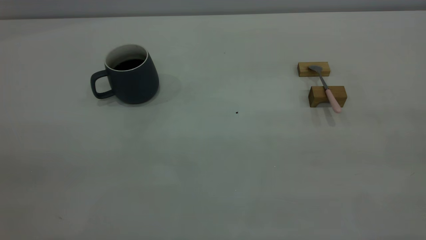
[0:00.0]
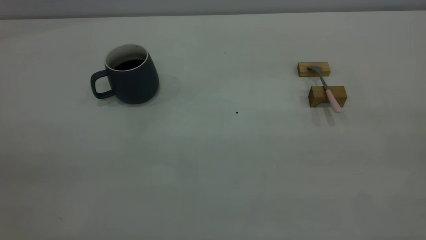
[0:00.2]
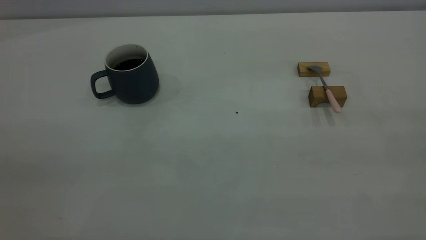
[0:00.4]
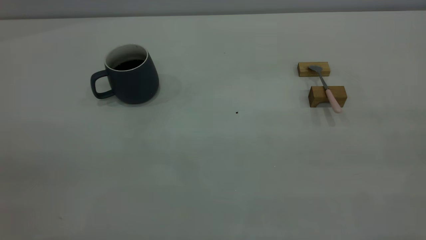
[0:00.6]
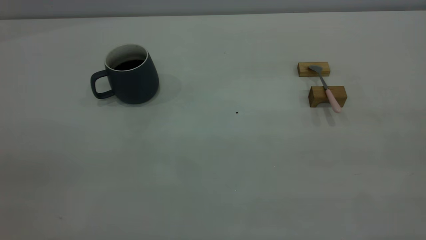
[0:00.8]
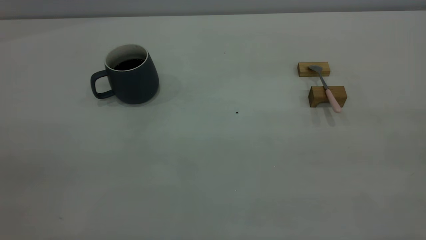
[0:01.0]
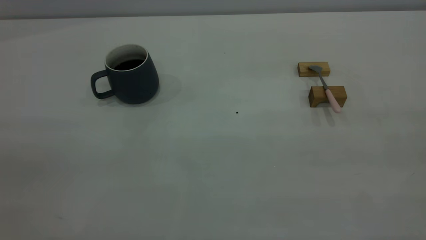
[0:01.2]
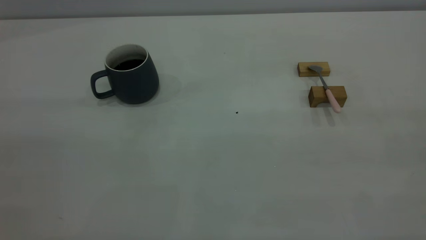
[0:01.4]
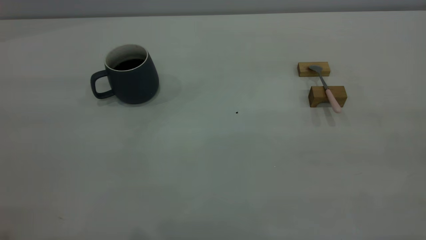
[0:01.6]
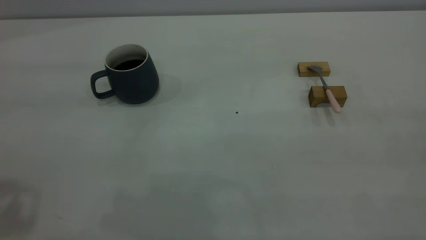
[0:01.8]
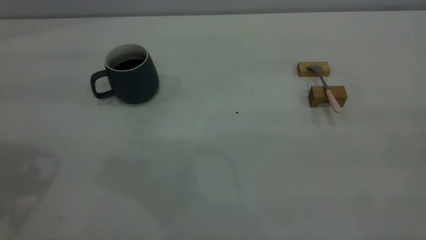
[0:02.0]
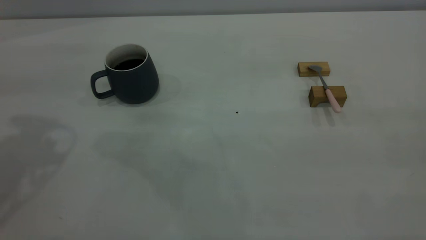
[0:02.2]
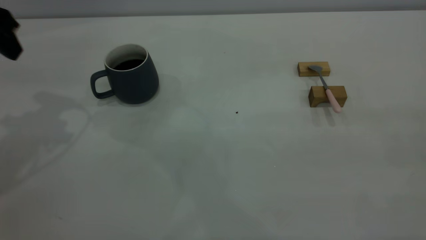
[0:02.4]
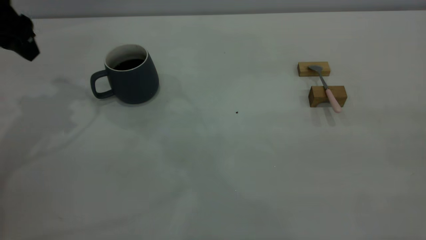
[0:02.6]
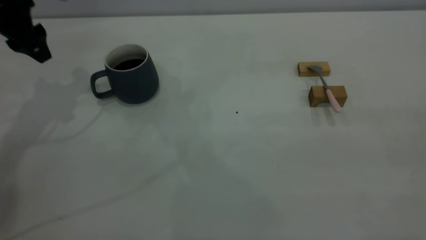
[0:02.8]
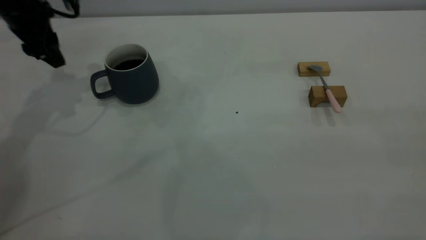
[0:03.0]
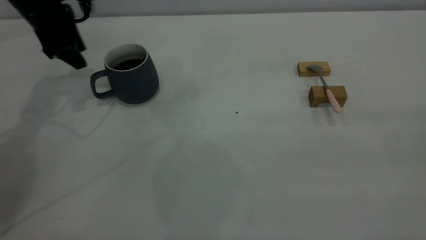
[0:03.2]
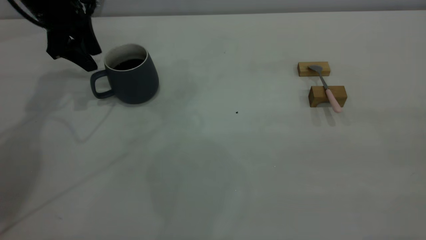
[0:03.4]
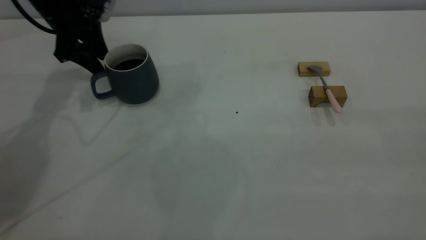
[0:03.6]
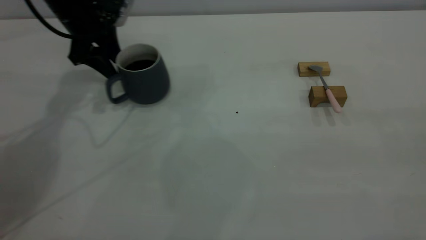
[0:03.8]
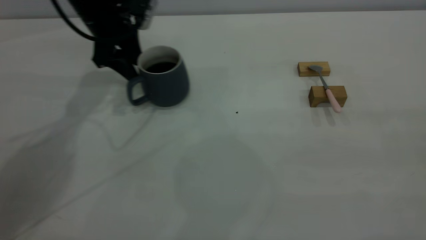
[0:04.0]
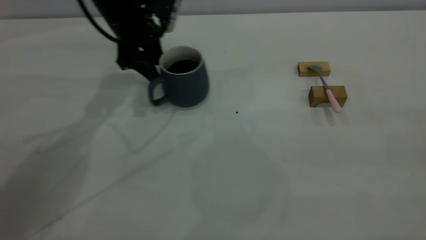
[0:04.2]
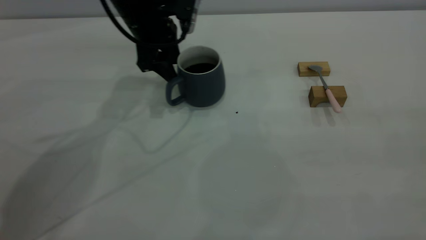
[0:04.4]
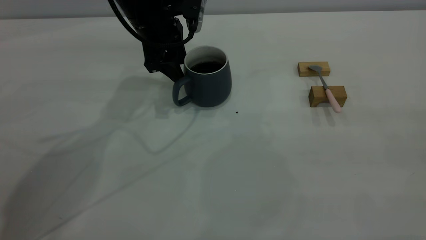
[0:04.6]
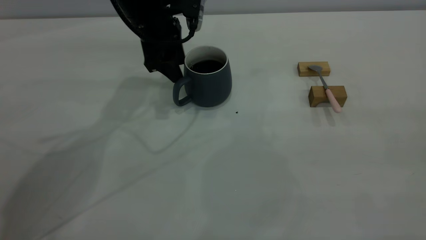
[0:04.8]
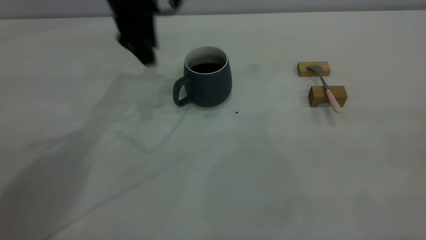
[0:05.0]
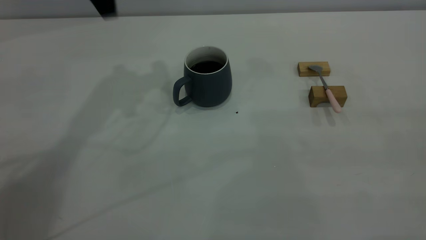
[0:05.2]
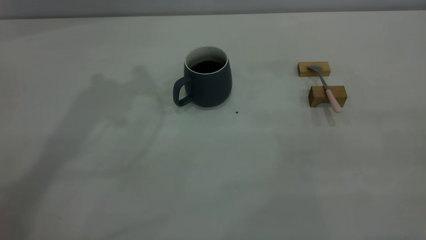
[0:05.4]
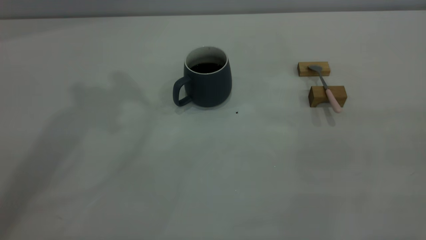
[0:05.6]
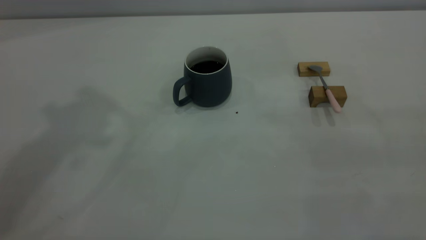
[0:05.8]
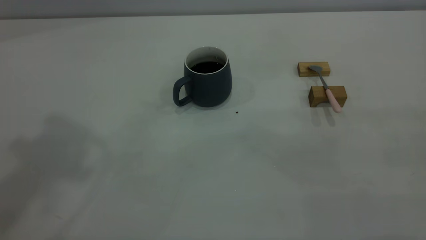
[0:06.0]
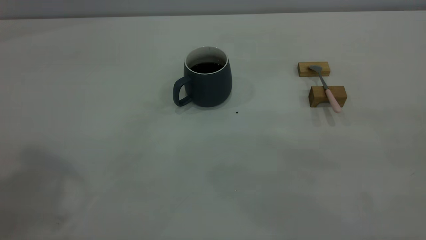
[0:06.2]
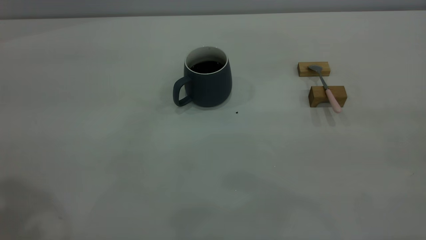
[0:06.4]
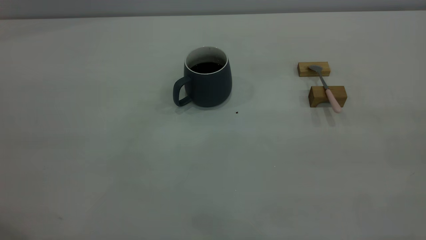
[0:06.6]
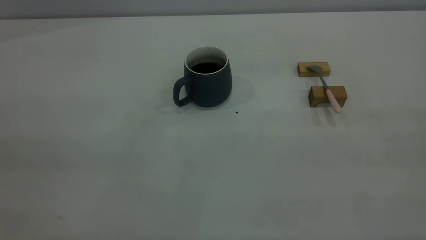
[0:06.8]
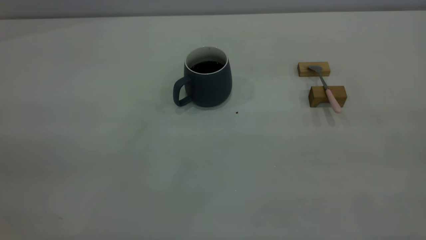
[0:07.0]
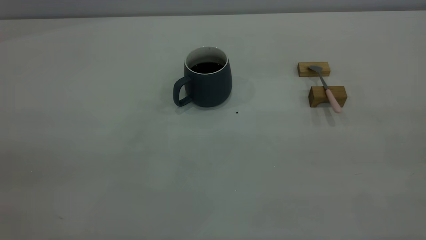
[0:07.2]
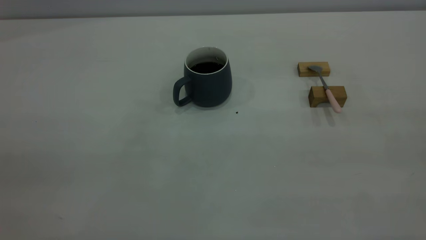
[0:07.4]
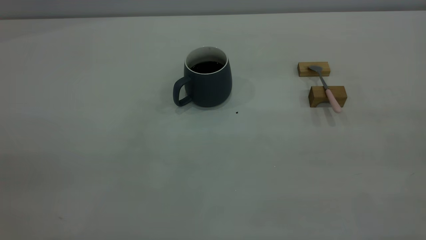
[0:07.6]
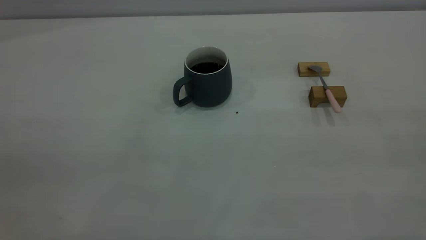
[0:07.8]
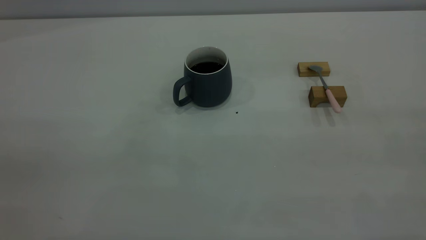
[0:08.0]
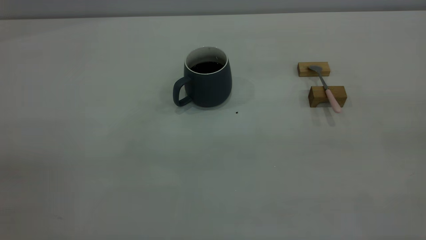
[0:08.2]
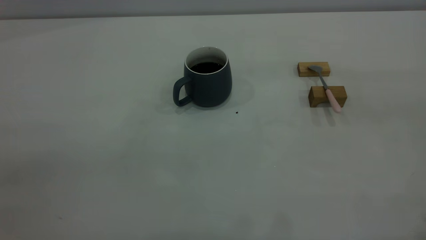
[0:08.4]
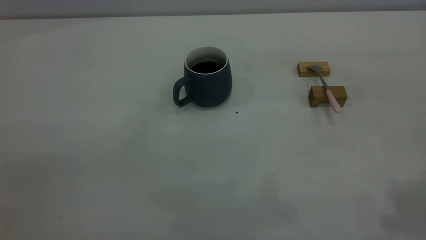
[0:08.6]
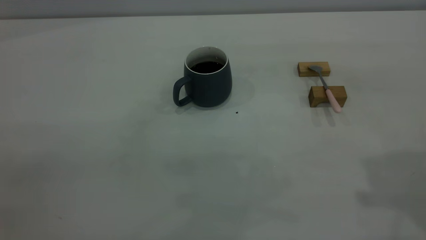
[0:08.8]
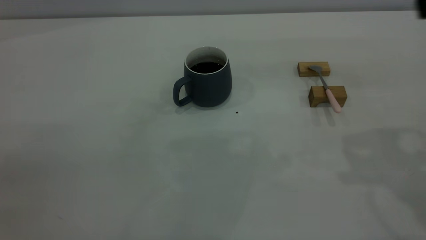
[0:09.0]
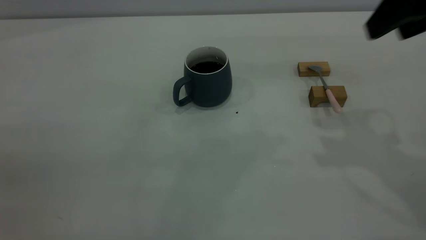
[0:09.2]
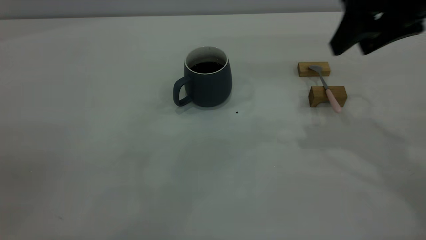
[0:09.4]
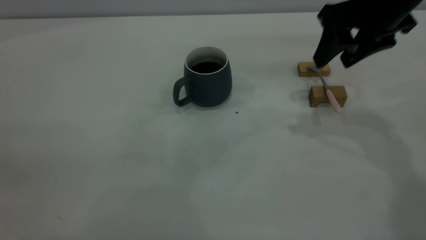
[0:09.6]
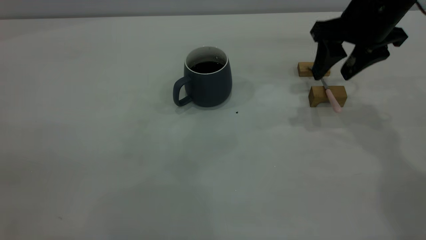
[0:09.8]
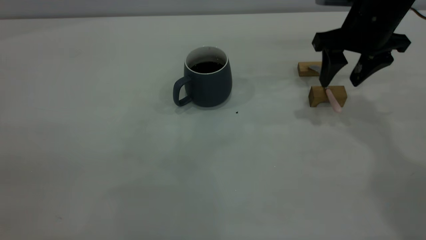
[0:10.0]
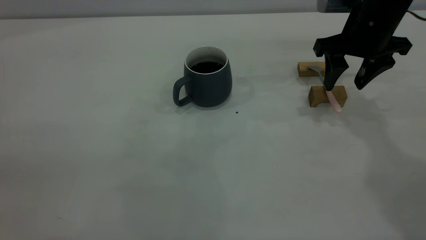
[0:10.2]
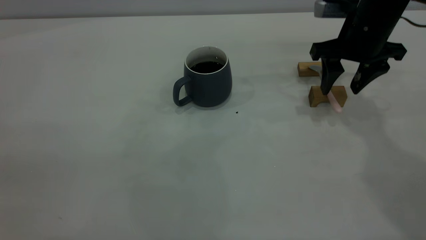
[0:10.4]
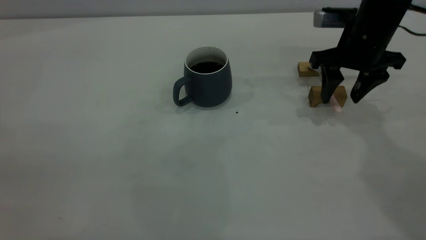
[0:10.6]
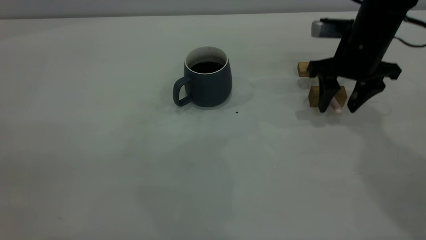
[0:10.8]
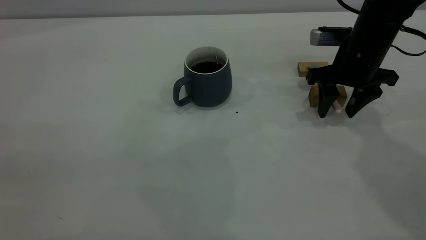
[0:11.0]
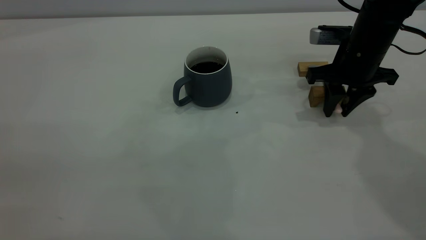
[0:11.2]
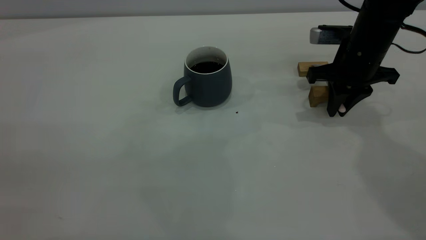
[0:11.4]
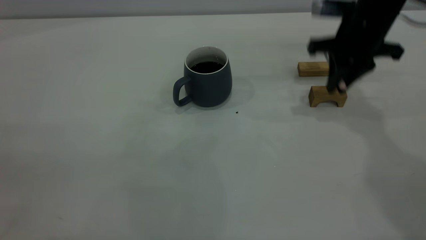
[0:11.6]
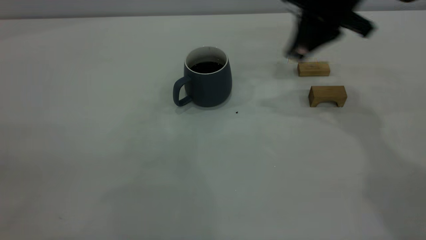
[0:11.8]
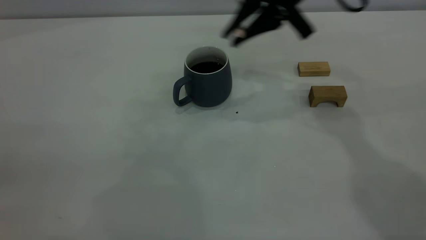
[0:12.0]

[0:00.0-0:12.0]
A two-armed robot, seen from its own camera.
Step, 0:00.0 to 0:04.8: Move the cup with coffee to the center of view.
Step, 0:05.0 to 0:11.4: Pick up the spoon.
0:01.6 to 0:03.0: The left gripper travels forward and downward by roughly 40 cm.
0:03.0 to 0:04.4: The left gripper goes roughly 20 cm to the right.
0:04.4 to 0:06.0: The left gripper heads upward and backward, covering roughly 40 cm.
0:09.0 to 0:10.4: The right gripper travels downward and forward by some 25 cm.
0:10.4 to 0:12.0: The right gripper travels to the left and upward by about 15 cm, and closes its fingers.

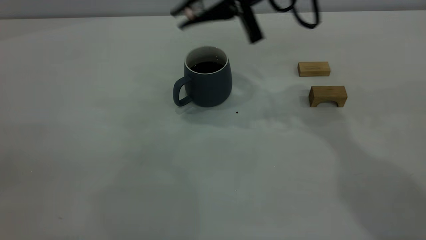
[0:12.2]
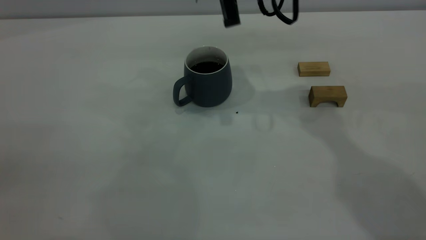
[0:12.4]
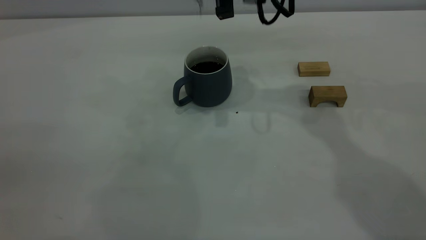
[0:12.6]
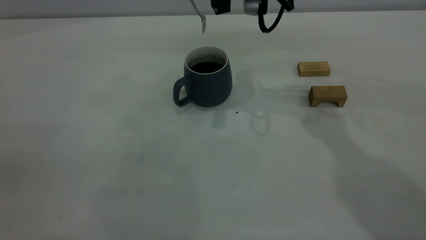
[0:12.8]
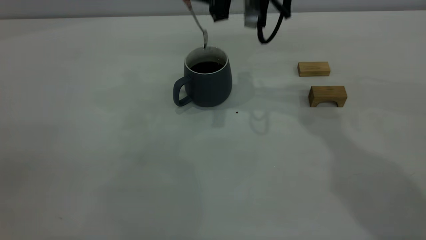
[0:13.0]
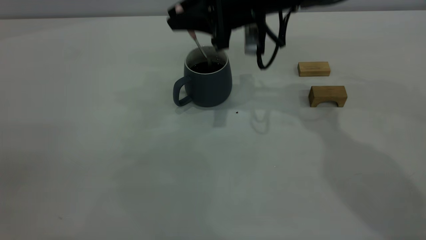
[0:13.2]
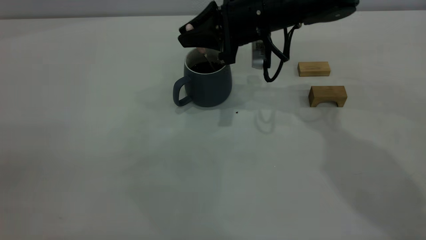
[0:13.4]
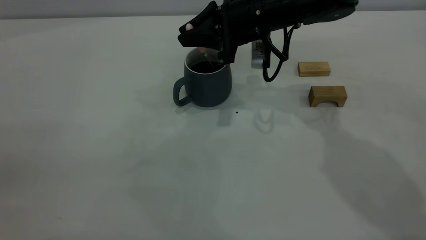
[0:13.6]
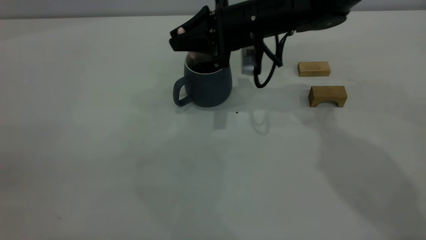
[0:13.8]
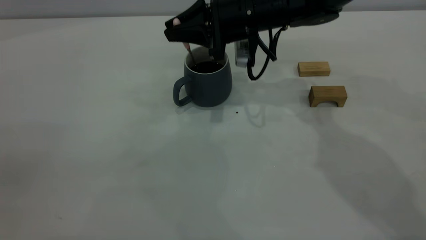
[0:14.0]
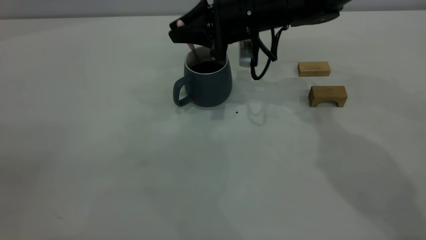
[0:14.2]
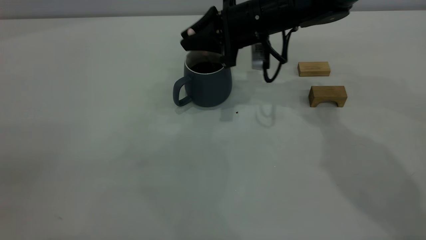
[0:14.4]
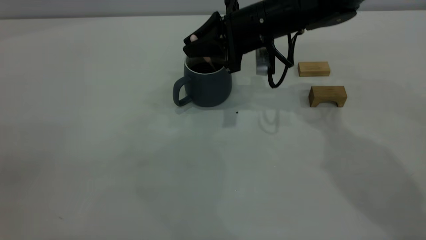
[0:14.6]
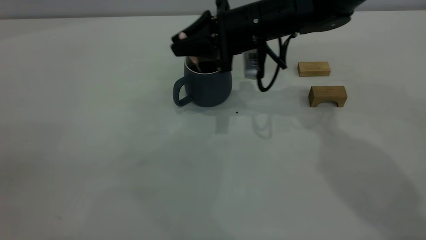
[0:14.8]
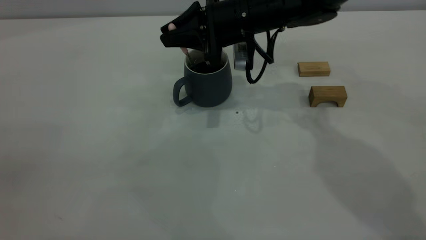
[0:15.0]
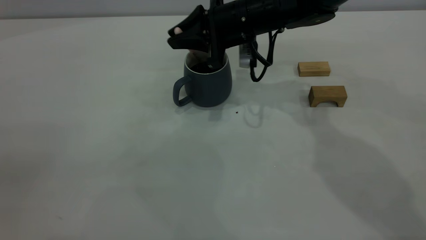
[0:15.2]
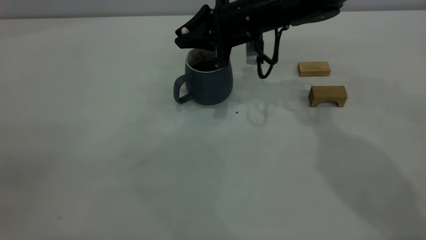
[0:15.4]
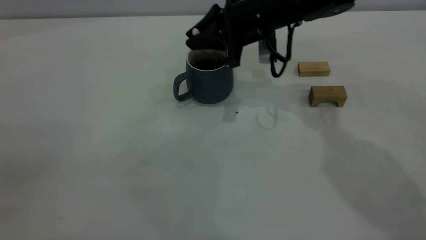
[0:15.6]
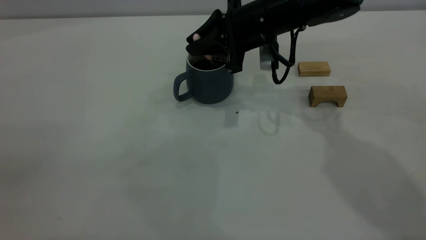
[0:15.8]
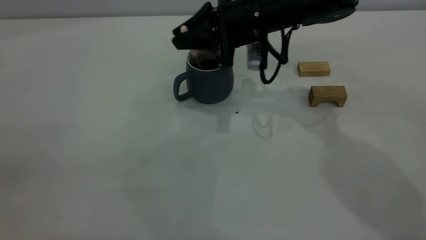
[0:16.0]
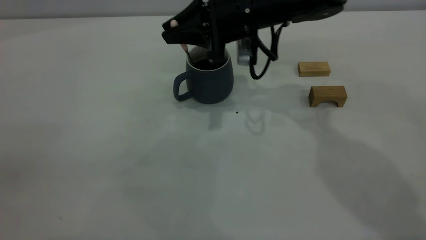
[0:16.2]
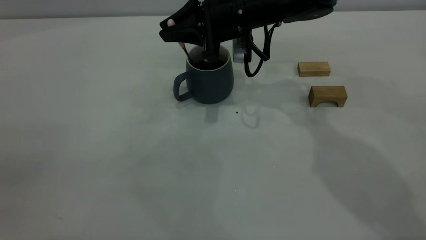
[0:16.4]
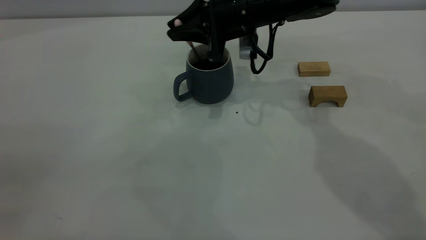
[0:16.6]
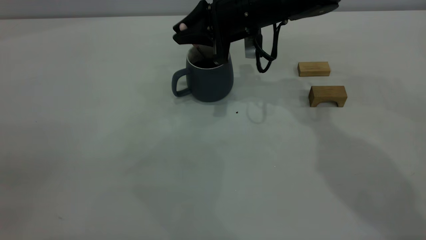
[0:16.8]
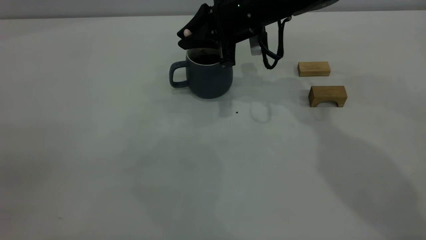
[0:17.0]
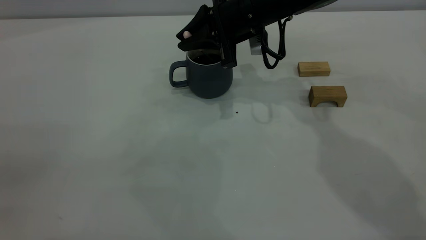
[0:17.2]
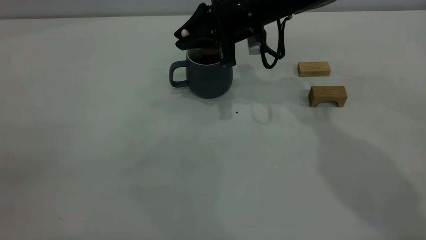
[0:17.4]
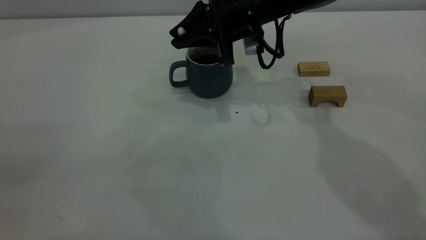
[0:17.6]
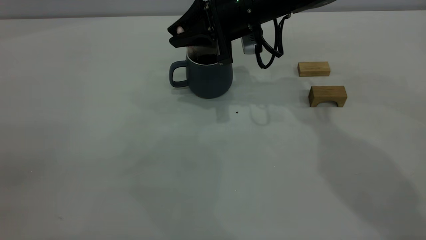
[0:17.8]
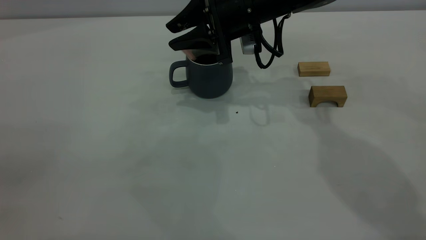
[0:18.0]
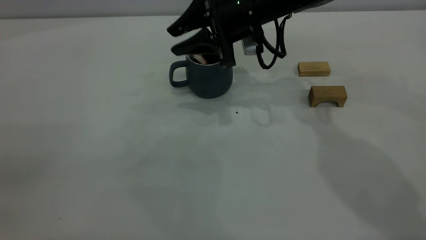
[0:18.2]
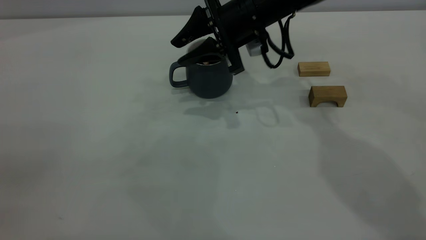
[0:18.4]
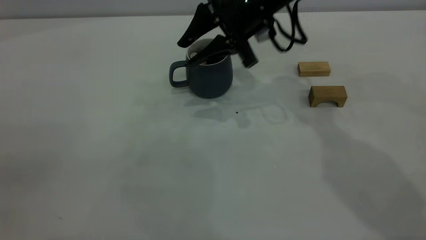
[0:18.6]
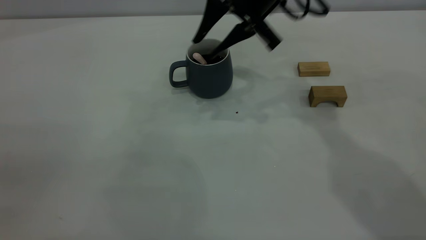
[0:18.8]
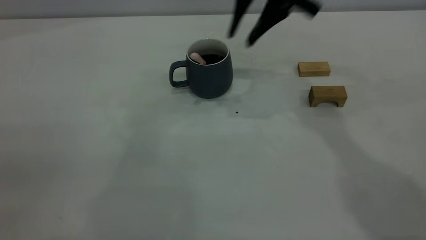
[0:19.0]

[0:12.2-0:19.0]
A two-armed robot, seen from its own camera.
Step, 0:12.2 to 0:18.8: Stir the coffee in the cup.
0:12.2 to 0:13.6: The right gripper shifts approximately 10 cm downward.
0:13.6 to 0:16.2: The grippers move only a little.
0:16.2 to 0:17.6: The grippers move only a little.
0:17.6 to 0:19.0: The right gripper is displaced upward by approximately 10 cm, and opens its fingers.
